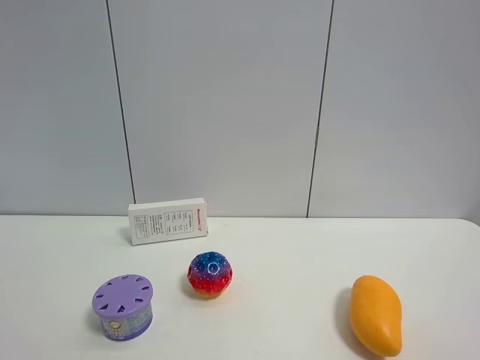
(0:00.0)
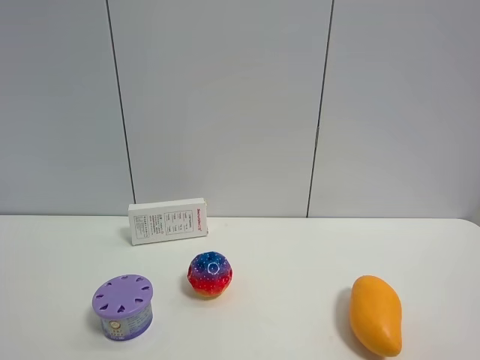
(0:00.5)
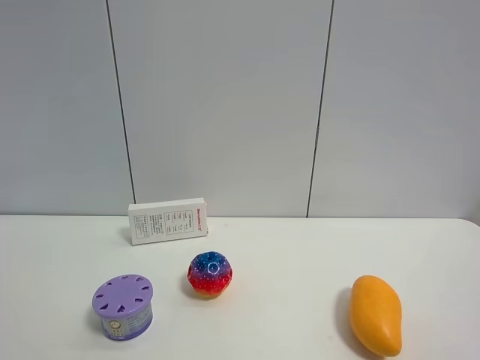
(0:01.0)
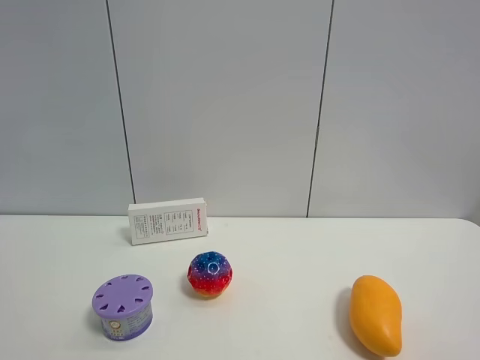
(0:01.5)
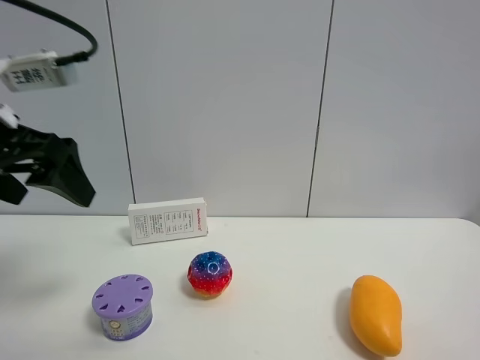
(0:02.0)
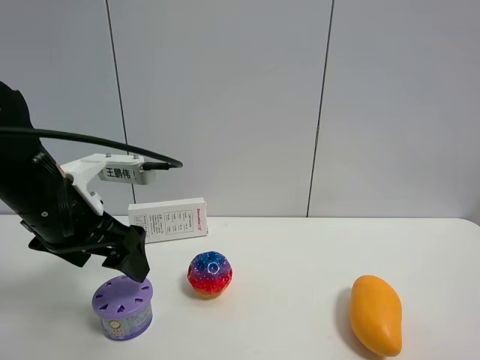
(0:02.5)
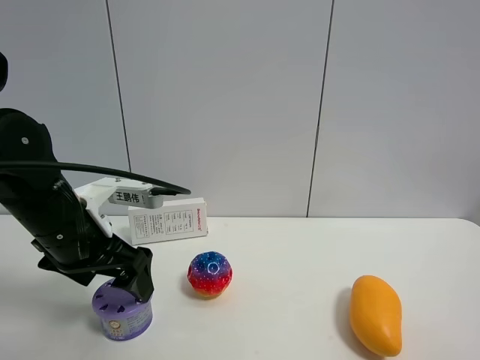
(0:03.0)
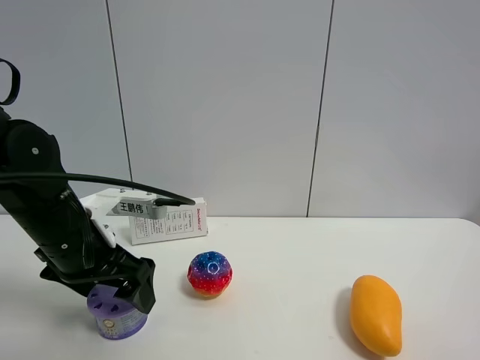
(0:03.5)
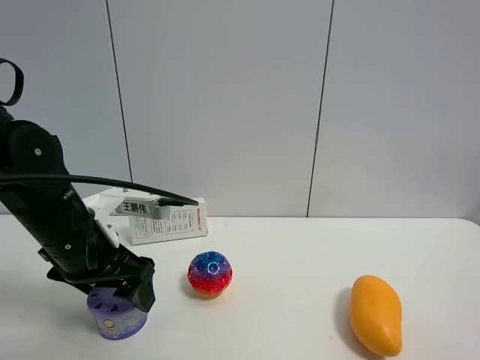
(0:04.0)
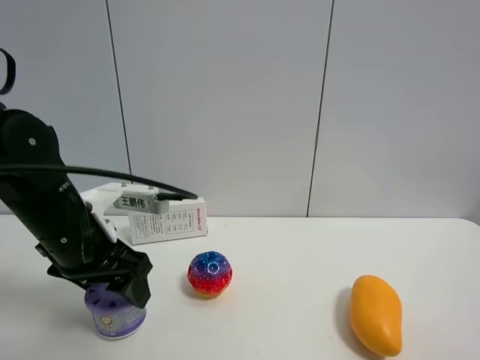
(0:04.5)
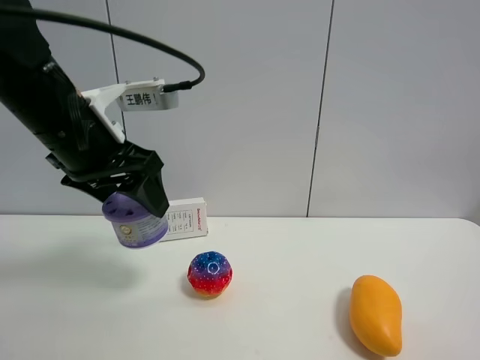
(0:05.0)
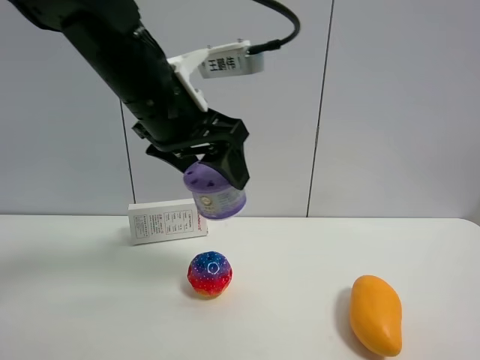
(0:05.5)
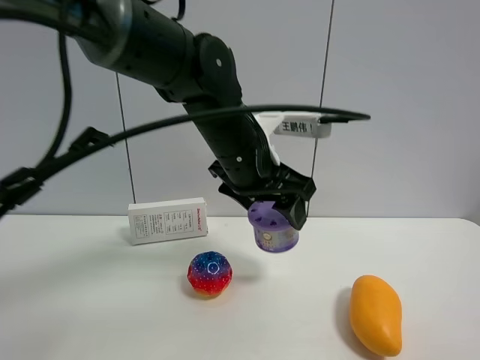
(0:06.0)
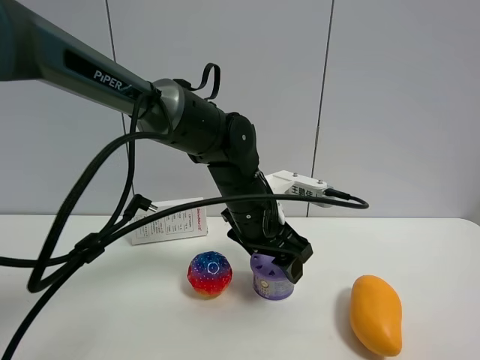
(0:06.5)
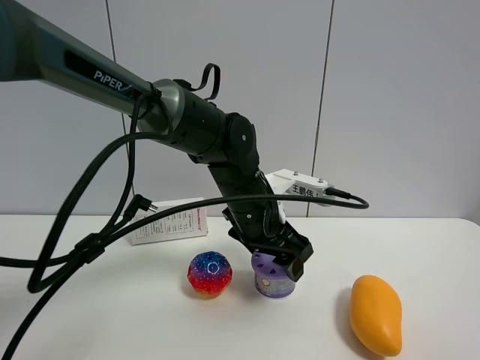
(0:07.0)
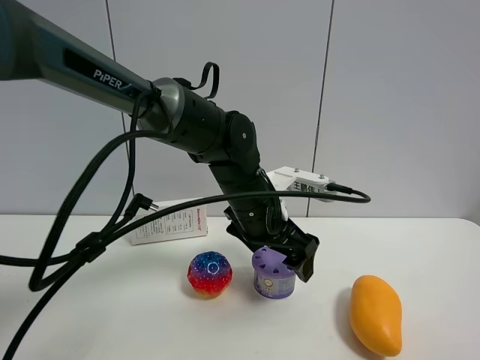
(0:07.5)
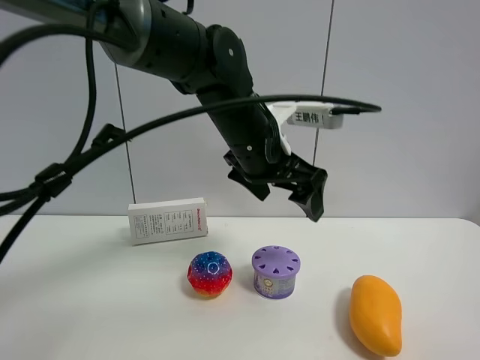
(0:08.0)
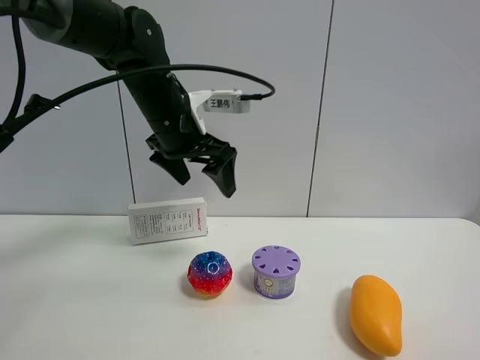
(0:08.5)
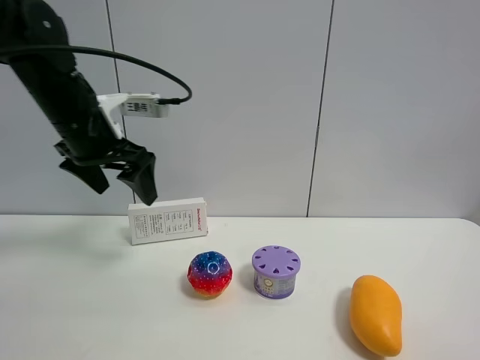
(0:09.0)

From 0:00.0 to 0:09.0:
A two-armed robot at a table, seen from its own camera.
Task of the whole recording: the gripper move the object.
Step, from 0:00.0 to 0:04.0: Grasp the Incense box with the left gripper.
Step, from 0:04.5 to 0:07.5: Place the Incense box on the table with the left gripper.
From 0:00.0 to 0:02.0: The left gripper goes about 25 cm forward.
From 0:02.0 to 0:04.5: The left gripper travels downward and to the right by approximately 10 cm, and closes its fingers.
From 0:04.5 to 0:07.0: The left gripper is displaced to the right and forward by approximately 20 cm.
From 0:07.0 to 0:09.0: The left gripper shifts about 25 cm to the left and upward, and opens its fingers.

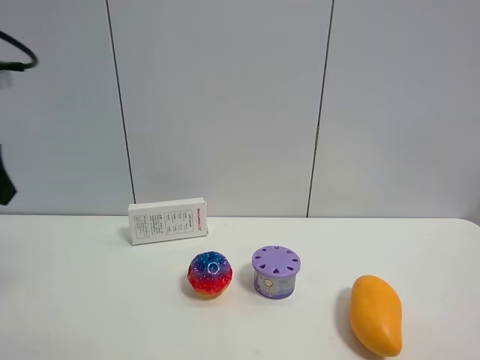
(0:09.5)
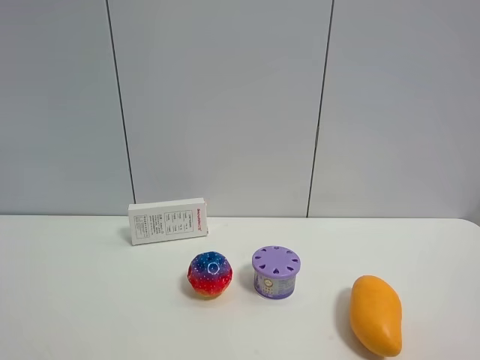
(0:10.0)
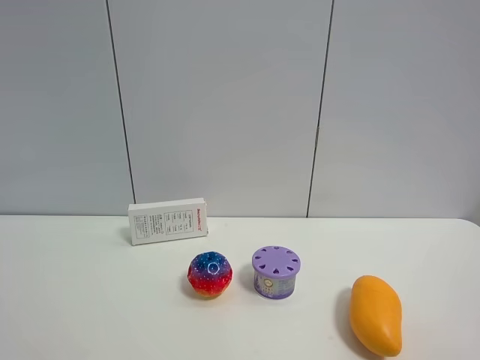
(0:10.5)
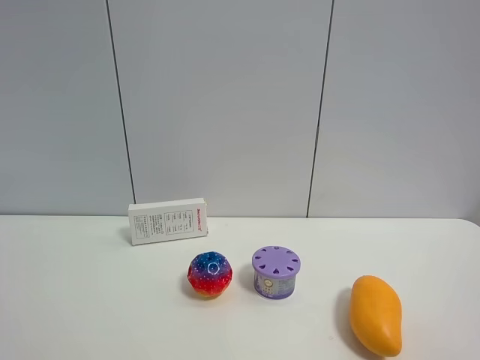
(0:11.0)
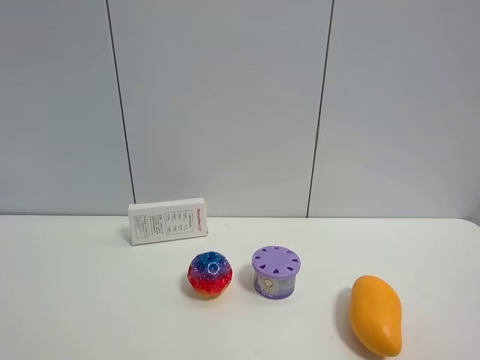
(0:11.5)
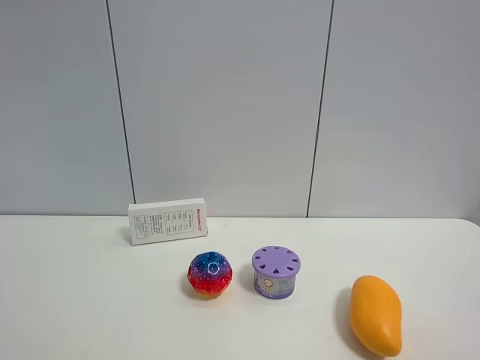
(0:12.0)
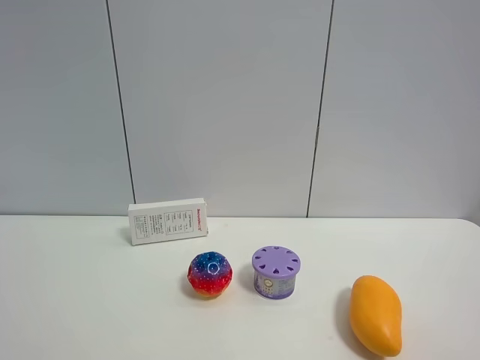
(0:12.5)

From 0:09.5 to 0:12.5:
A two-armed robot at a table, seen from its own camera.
Task of the whole recording: the gripper move the object.
From 0:09.5 to 0:11.0: The left gripper moves backward, some 25 cm.

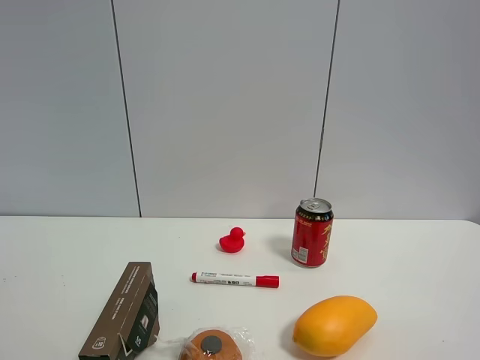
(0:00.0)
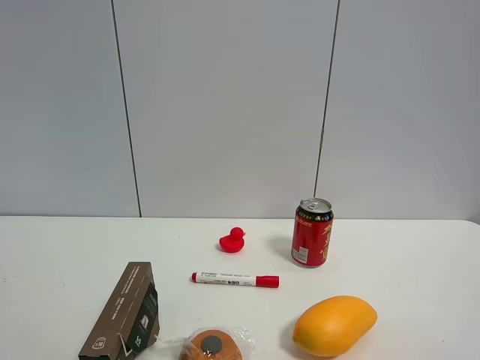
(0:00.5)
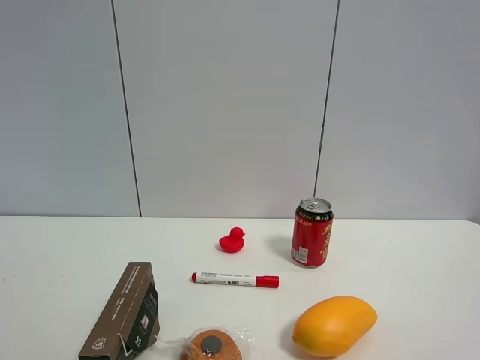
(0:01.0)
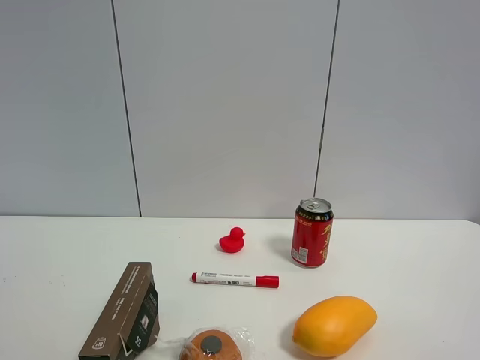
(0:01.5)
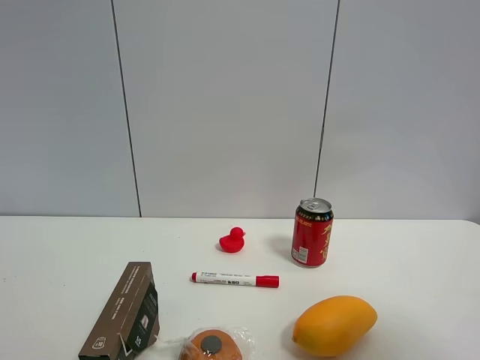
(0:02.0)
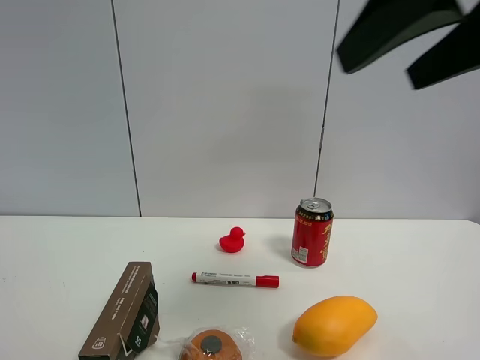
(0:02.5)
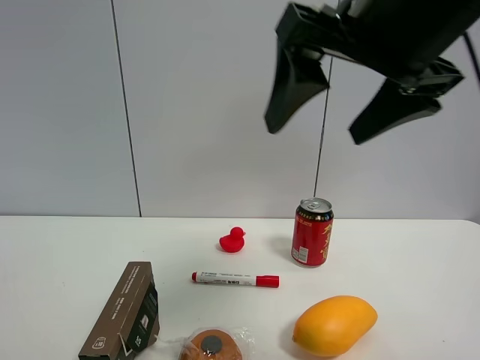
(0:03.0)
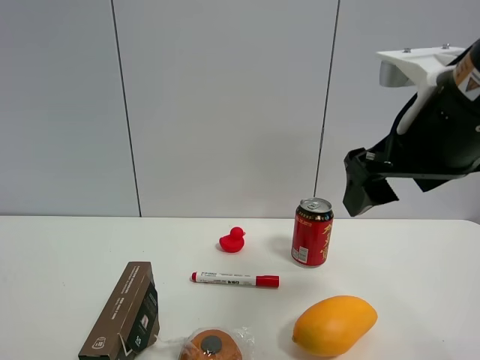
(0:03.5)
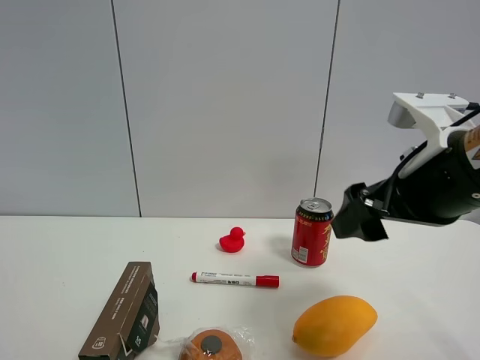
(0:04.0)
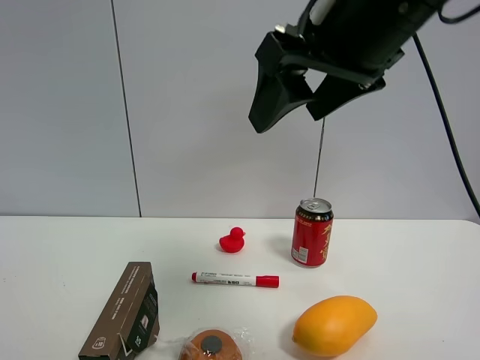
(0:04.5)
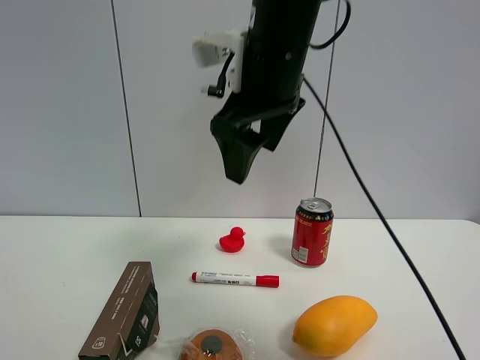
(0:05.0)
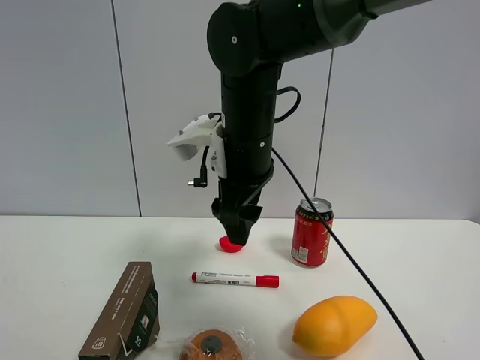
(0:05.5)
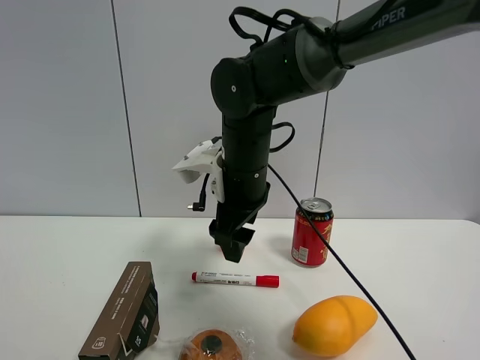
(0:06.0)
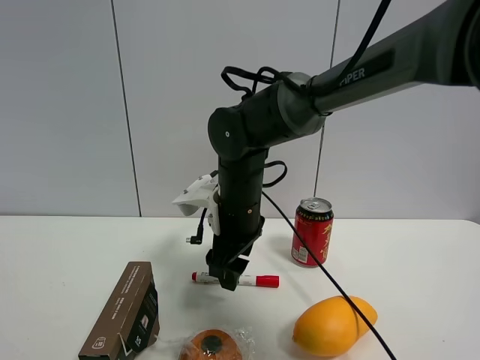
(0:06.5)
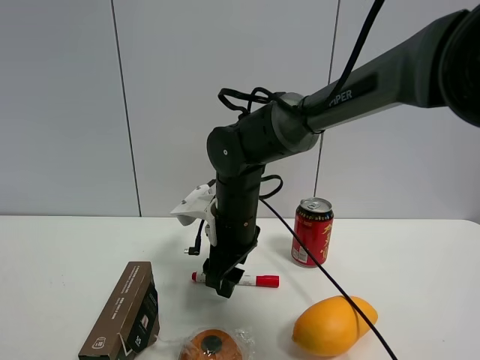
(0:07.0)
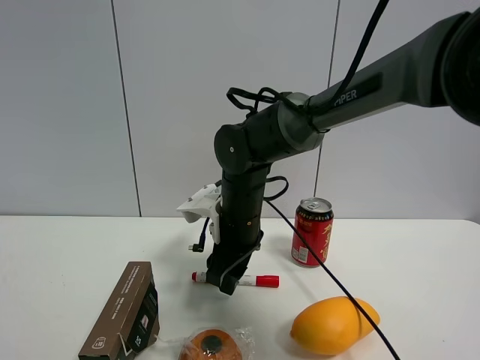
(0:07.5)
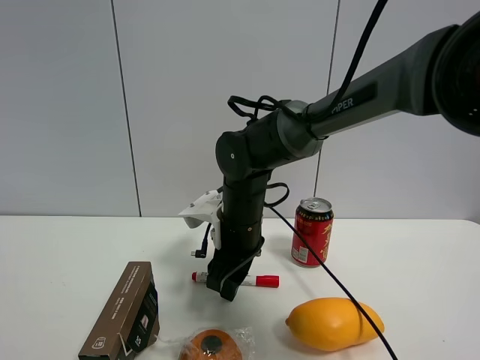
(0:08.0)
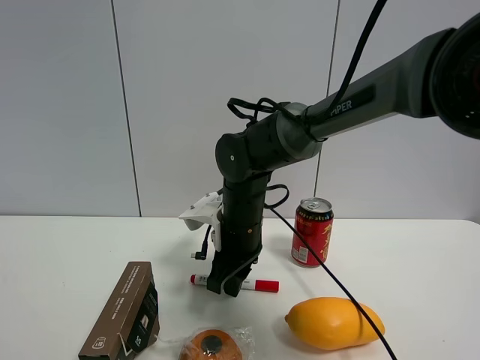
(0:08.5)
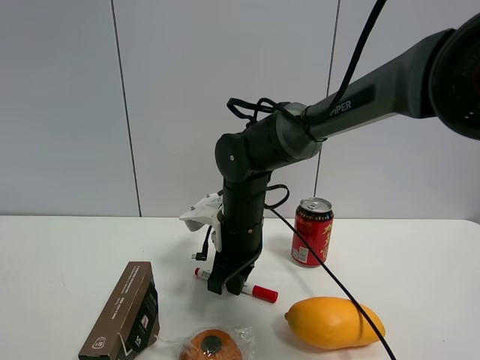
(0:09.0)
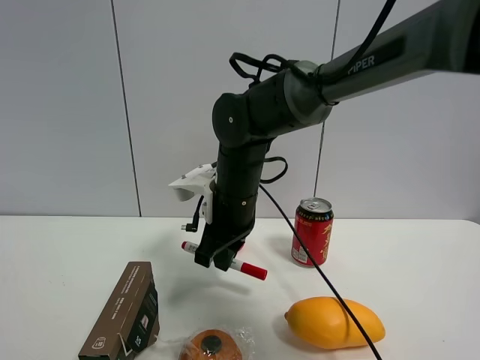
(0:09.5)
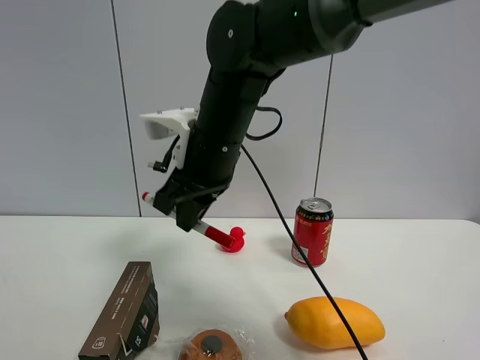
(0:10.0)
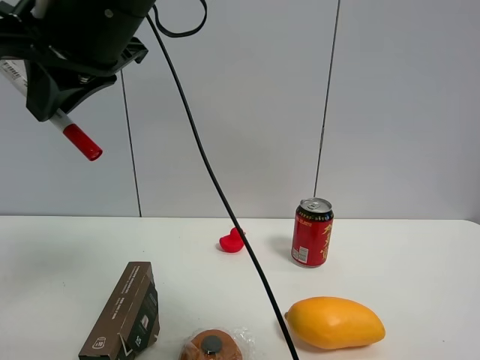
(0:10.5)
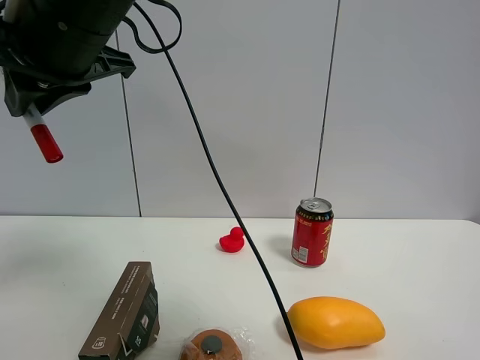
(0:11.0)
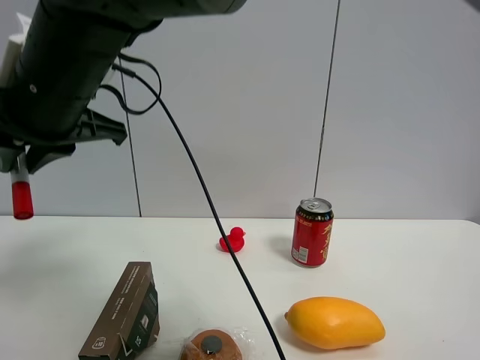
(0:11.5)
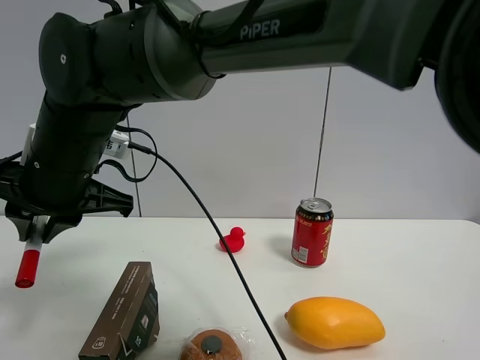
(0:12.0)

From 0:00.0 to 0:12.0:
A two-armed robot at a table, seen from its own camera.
Task of the whole recording: the gripper move the object.
Step, from 0:00.0 to 0:08.5: Grasp the red marker pen with the right gripper.
From 0:00.0 to 0:02.0: The right gripper goes about 10 cm upward and forward.
From 0:02.0 to 0:04.0: The right gripper shifts about 25 cm forward, downward and to the left.
From 0:04.0 to 0:06.0: The right gripper moves to the left and forward, roughly 25 cm.
From 0:06.0 to 0:08.0: The right gripper travels downward by about 10 cm.
From 0:08.0 to 0:10.0: The right gripper is displaced upward by some 15 cm, and closes up.
From 0:10.0 to 0:12.0: The right gripper is displaced to the left by roughly 15 cm.

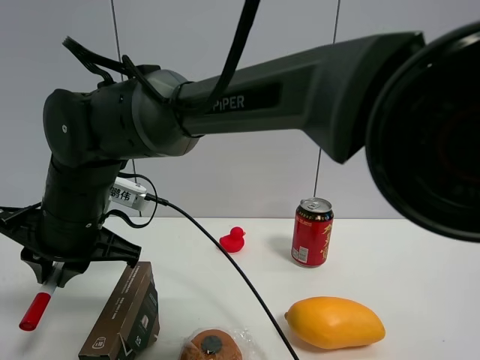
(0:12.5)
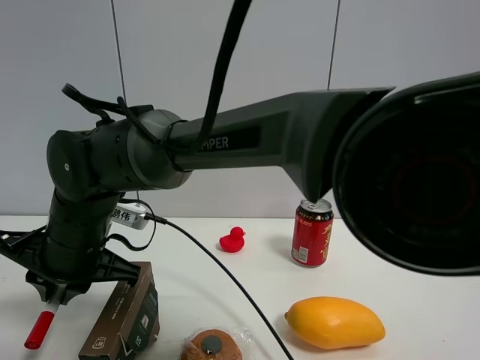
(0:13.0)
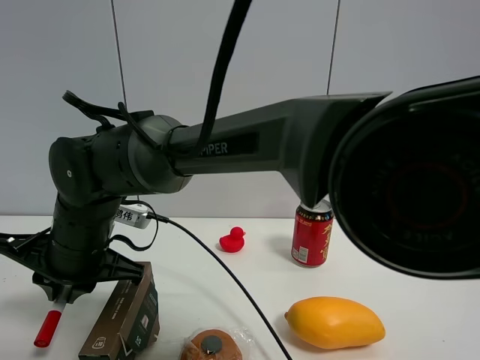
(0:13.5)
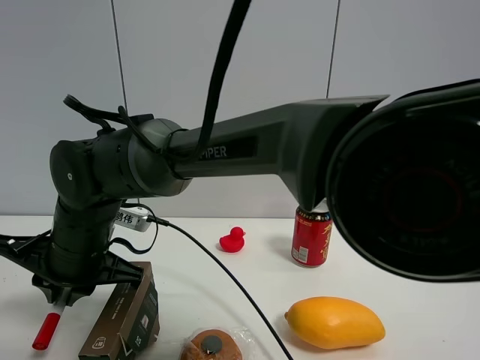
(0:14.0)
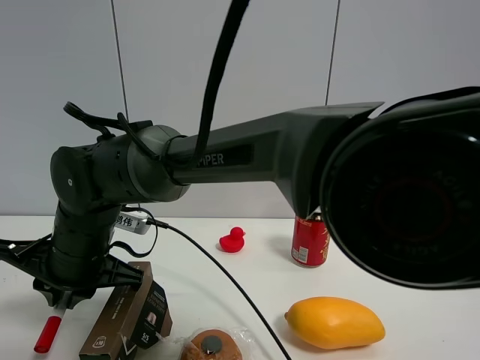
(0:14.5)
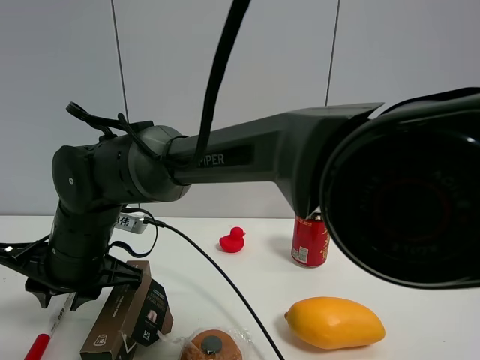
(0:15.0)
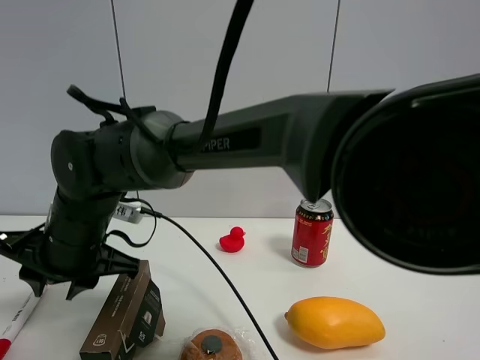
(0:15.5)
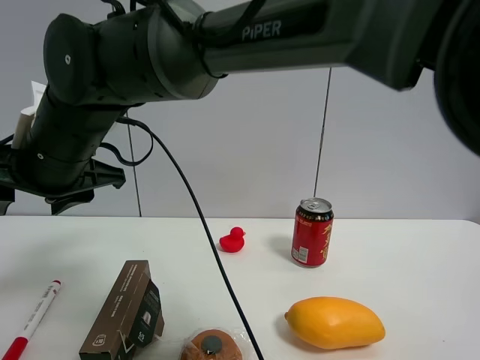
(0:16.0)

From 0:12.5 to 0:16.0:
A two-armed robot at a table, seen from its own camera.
Task of the whole recording: the gripper move the object.
Step, from 0:12.5 to 0:15.0: Place the red marker pen on the table with the right gripper.
From 0:14.5 to 0:16.0: The right gripper moves upward, about 10 cm, and opens up.
